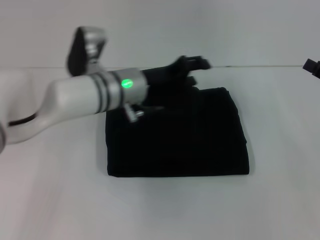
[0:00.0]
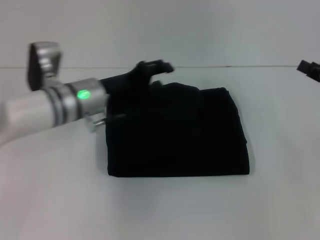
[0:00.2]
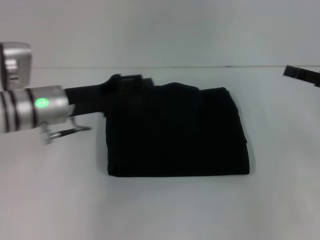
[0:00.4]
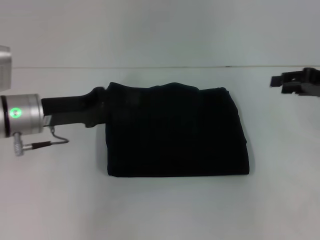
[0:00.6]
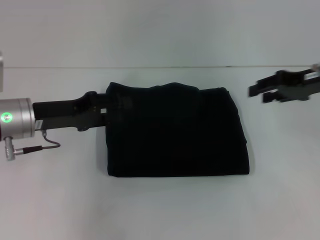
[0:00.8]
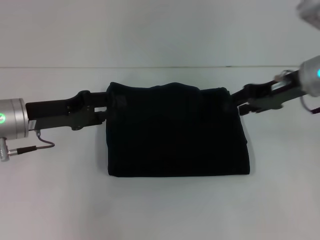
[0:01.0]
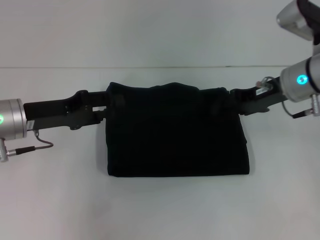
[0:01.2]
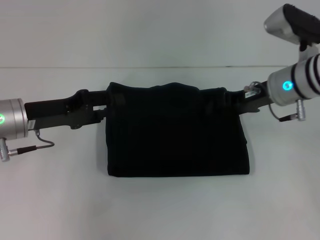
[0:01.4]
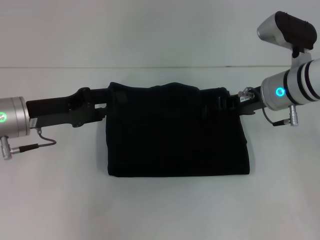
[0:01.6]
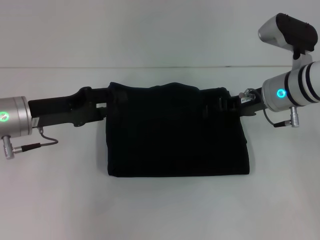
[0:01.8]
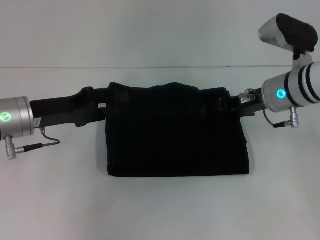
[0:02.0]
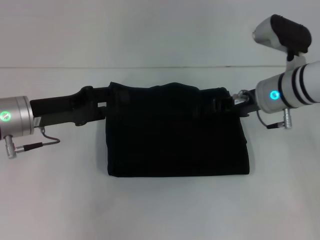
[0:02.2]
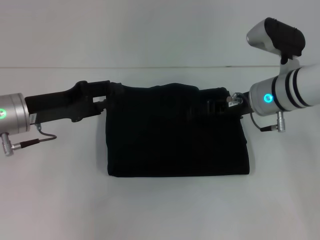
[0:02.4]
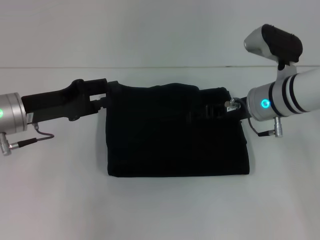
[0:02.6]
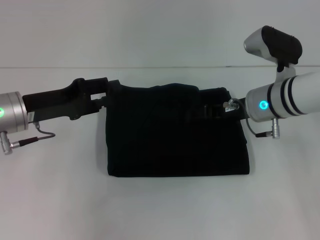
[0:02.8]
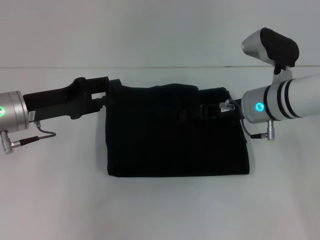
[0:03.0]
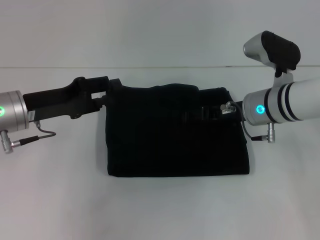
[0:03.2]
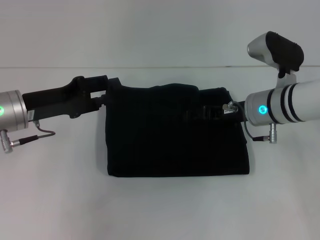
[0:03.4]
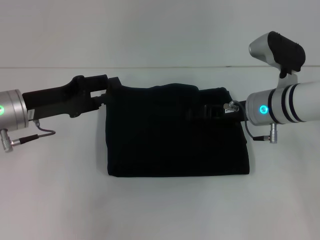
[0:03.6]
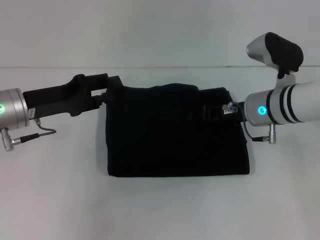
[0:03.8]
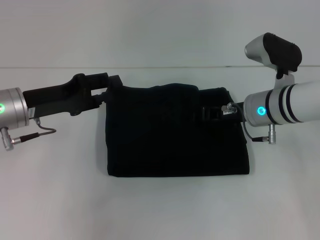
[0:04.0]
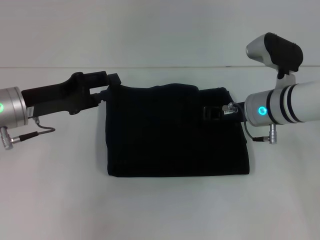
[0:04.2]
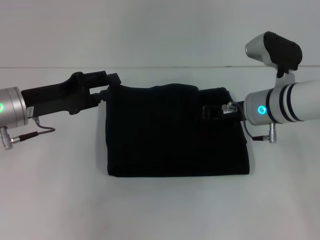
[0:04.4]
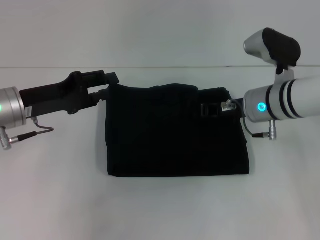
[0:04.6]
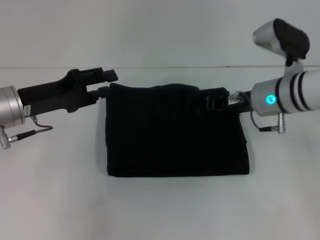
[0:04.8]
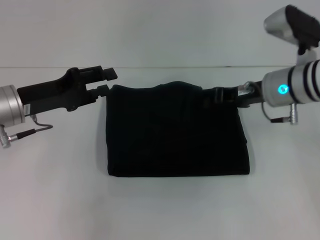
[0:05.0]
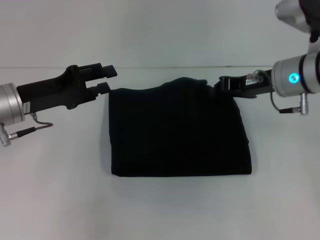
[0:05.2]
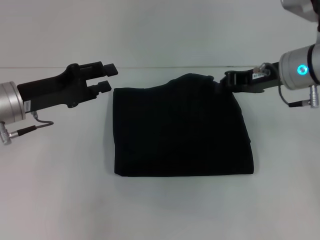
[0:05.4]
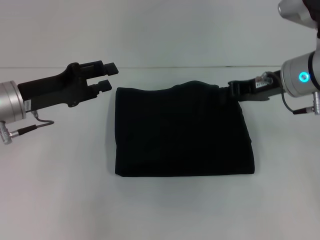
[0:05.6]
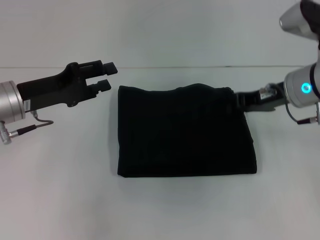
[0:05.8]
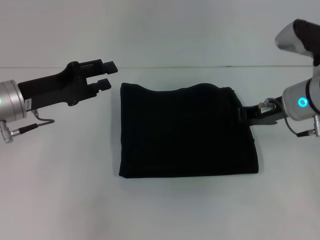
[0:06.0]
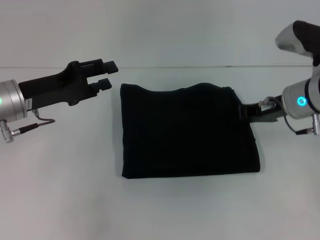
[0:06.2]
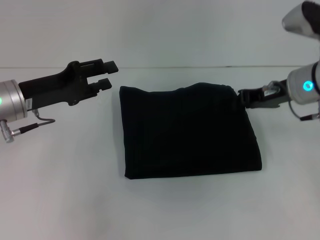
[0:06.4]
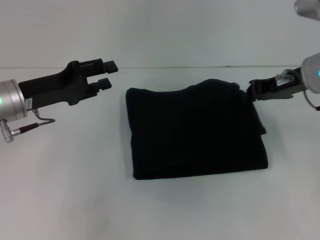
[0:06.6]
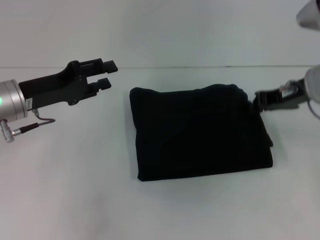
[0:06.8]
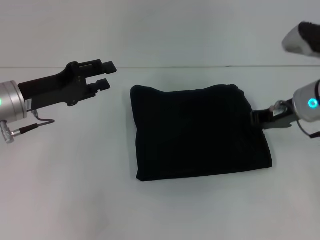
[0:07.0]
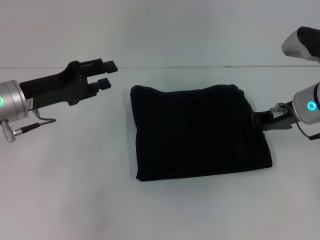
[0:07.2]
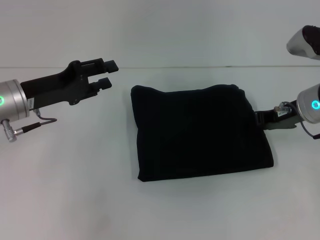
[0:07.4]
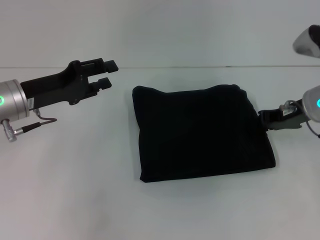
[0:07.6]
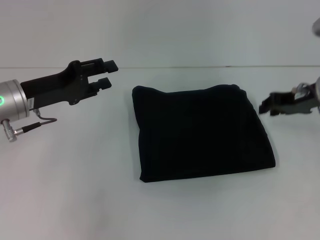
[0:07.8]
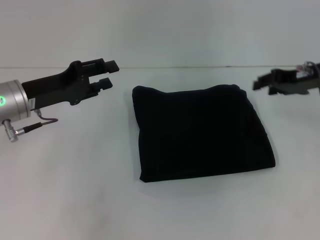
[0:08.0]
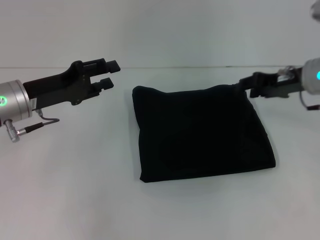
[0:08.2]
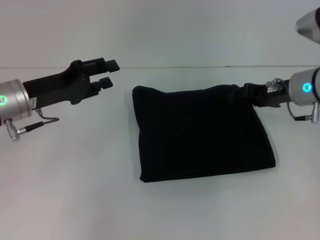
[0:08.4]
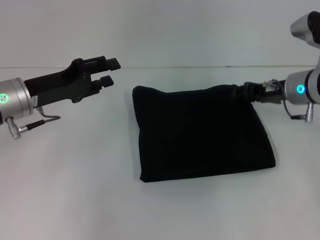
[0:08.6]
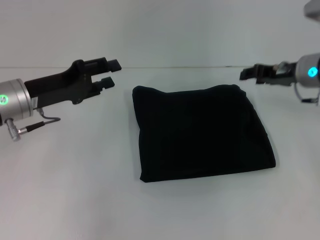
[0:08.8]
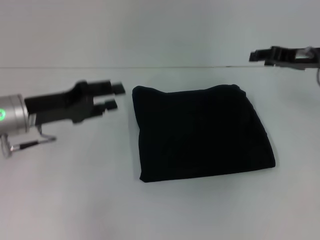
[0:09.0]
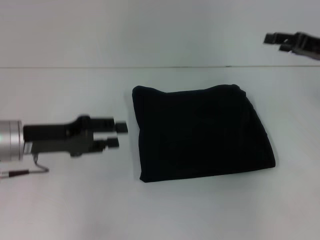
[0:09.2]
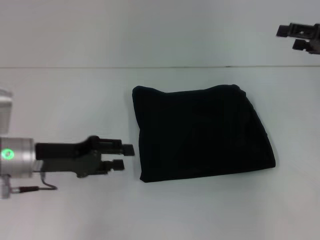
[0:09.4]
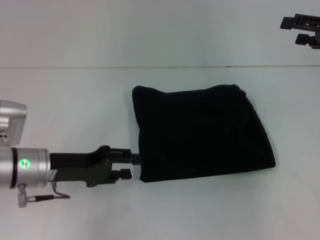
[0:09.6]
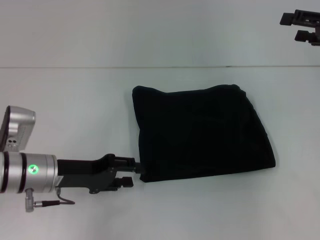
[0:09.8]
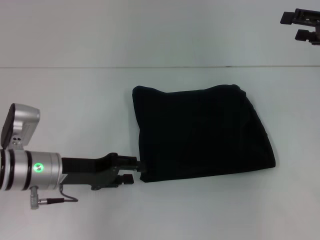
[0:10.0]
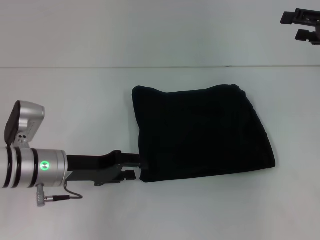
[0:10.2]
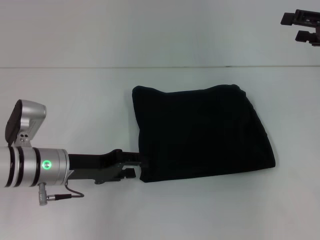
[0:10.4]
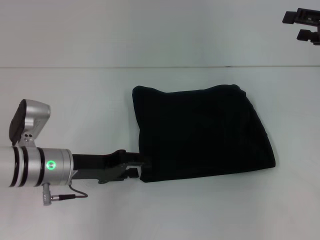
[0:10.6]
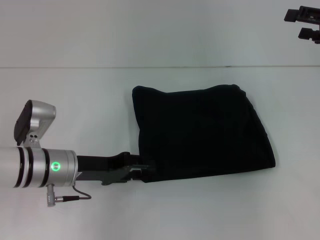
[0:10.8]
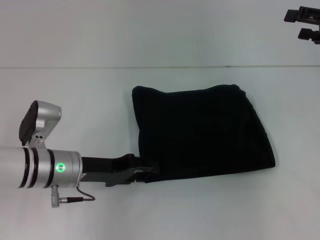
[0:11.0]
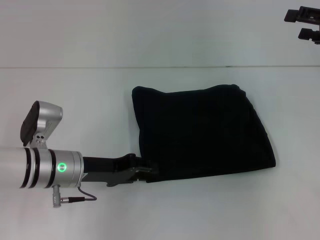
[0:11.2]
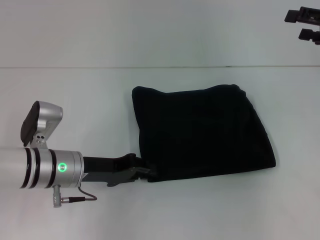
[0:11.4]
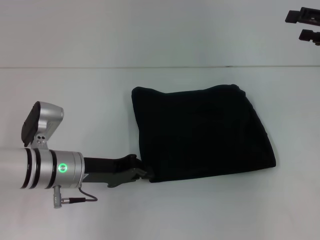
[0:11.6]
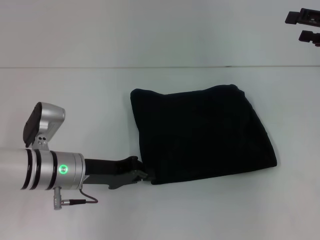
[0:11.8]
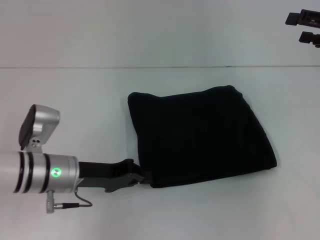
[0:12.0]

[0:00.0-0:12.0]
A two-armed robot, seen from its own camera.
0:00.0 to 0:01.6: The left gripper goes roughly 15 cm to the left; the right gripper shifts some 20 cm to the left and forward.
0:01.6 to 0:03.0: There are only small adjustments of the grippers.
0:03.0 to 0:04.4: The right gripper closes its fingers.
0:06.0 to 0:07.6: There are only small adjustments of the grippers.
0:07.6 to 0:09.0: The right gripper changes place by approximately 5 cm, and opens up.
0:09.0 to 0:10.4: The right gripper shifts some 5 cm to the right, and opens its fingers; the left gripper heads downward, covering roughly 5 cm.
0:10.4 to 0:12.0: The left gripper closes its fingers.

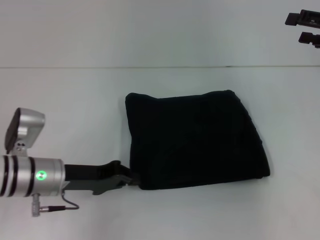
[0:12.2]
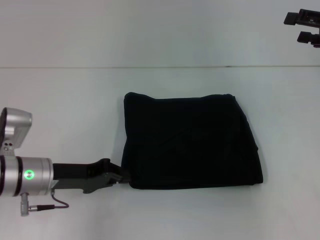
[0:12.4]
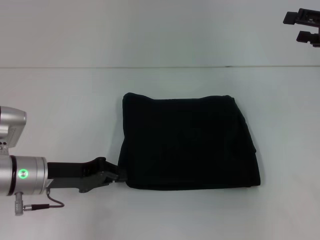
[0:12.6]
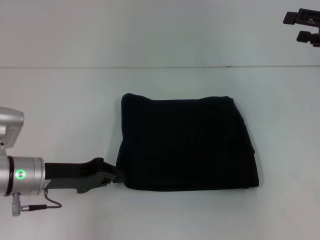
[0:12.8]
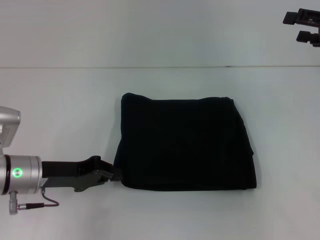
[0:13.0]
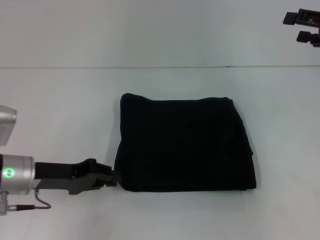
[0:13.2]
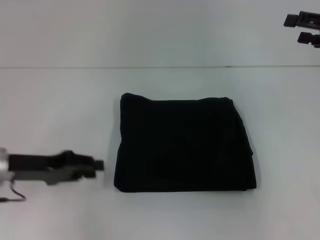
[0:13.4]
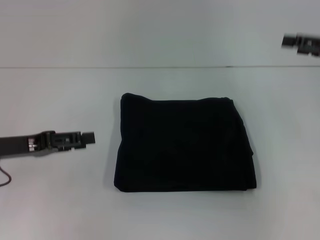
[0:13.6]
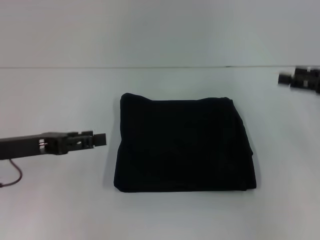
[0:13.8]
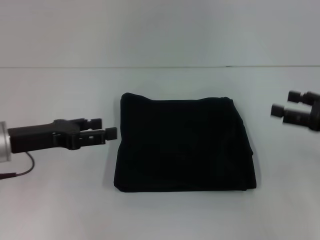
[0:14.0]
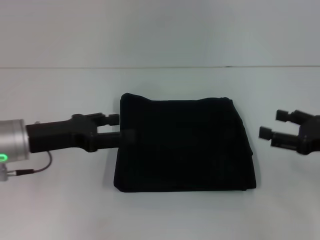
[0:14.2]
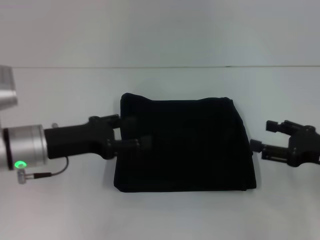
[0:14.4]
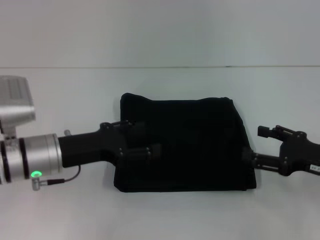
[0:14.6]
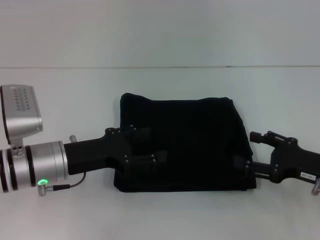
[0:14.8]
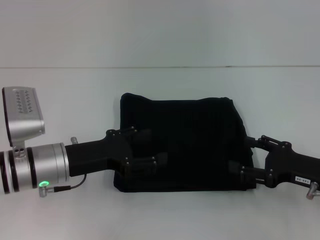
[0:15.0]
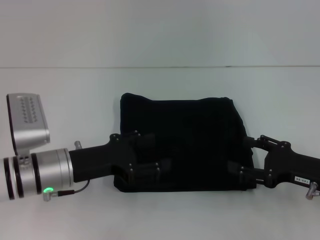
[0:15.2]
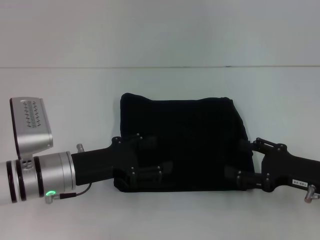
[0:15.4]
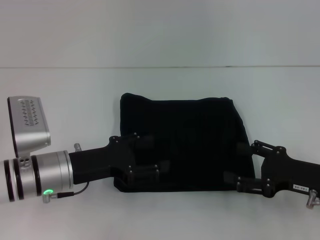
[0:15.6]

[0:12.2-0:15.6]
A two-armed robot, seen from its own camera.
0:12.2 to 0:13.8: The left gripper travels to the left and upward by some 10 cm, and opens up. Meanwhile the right gripper moves backward, roughly 5 cm.
0:13.8 to 0:15.6: The left gripper shifts roughly 10 cm to the right. The right gripper is displaced downward, backward and to the left by approximately 15 cm.
